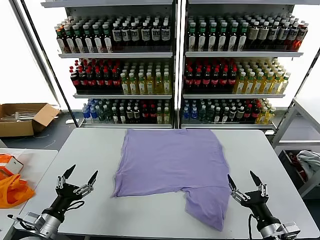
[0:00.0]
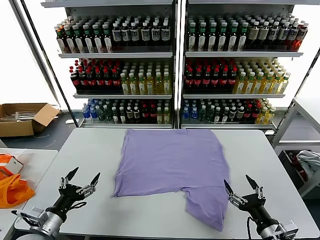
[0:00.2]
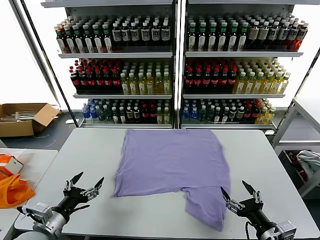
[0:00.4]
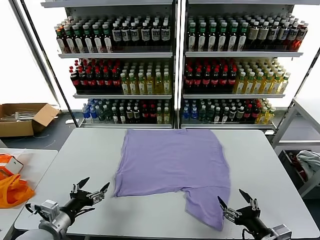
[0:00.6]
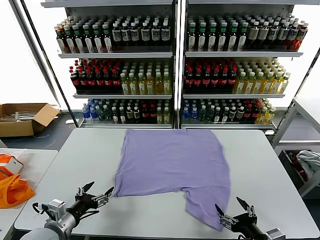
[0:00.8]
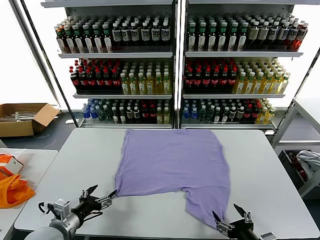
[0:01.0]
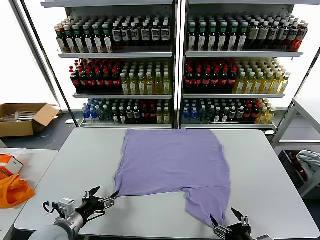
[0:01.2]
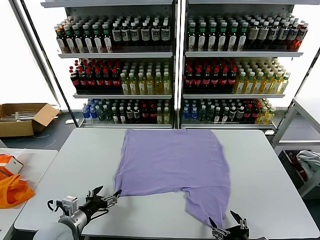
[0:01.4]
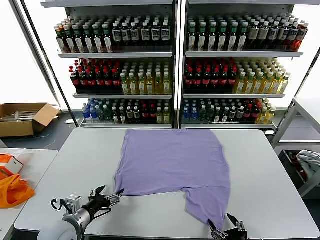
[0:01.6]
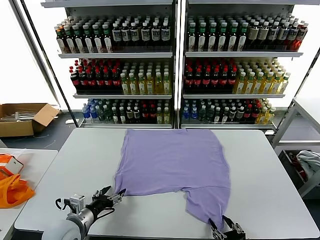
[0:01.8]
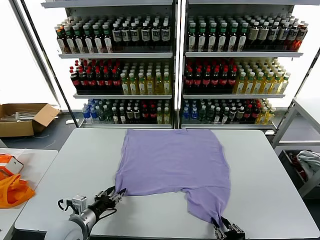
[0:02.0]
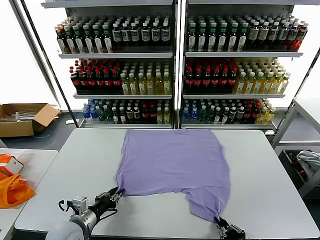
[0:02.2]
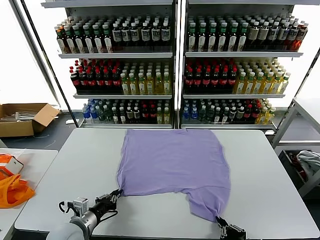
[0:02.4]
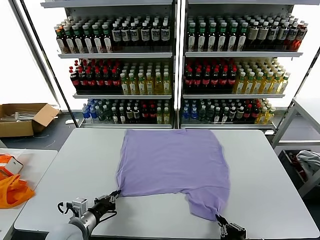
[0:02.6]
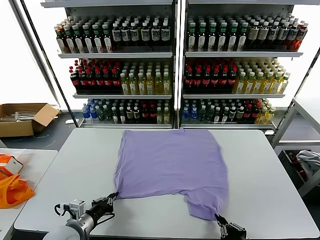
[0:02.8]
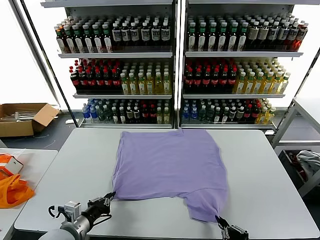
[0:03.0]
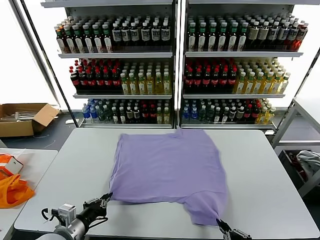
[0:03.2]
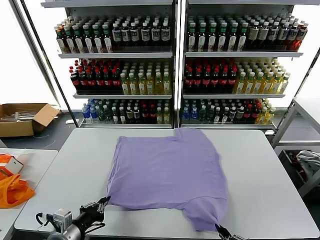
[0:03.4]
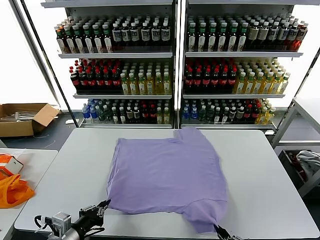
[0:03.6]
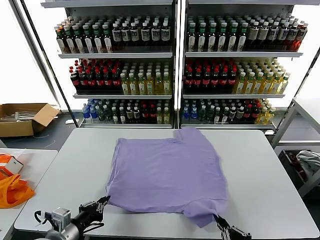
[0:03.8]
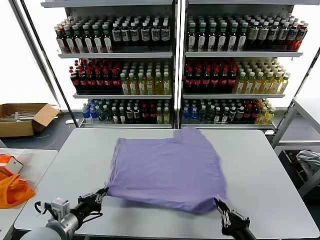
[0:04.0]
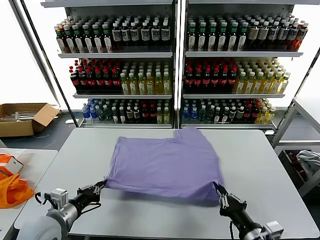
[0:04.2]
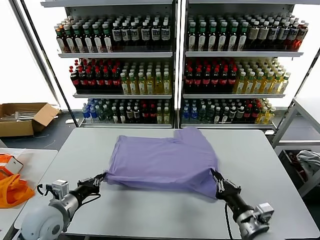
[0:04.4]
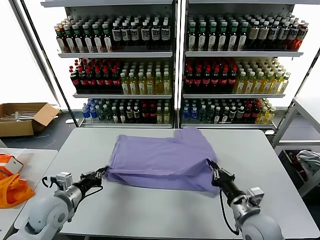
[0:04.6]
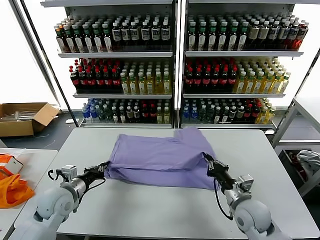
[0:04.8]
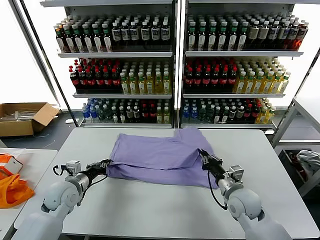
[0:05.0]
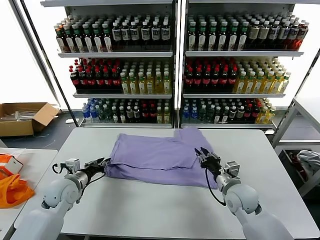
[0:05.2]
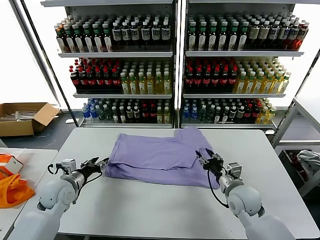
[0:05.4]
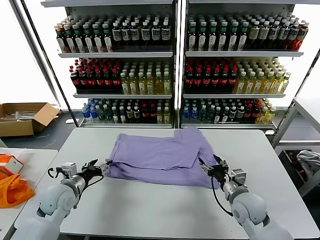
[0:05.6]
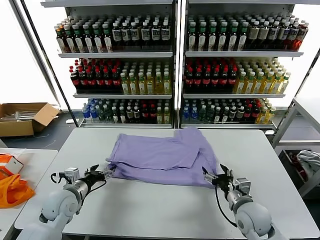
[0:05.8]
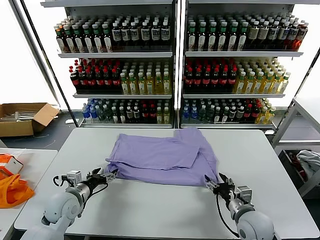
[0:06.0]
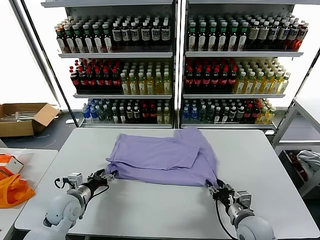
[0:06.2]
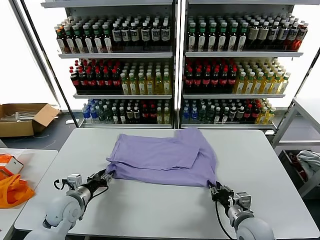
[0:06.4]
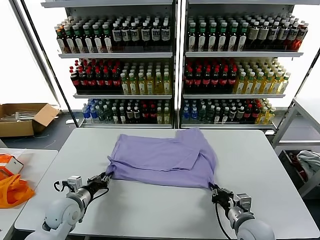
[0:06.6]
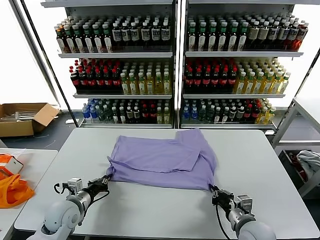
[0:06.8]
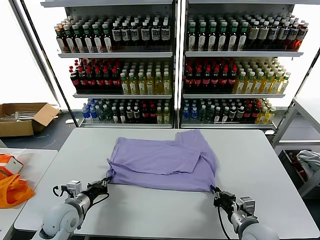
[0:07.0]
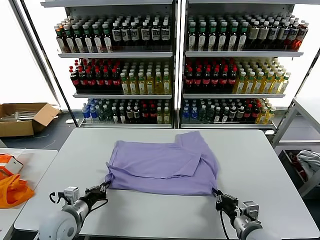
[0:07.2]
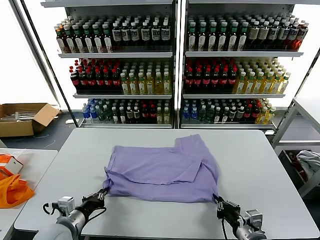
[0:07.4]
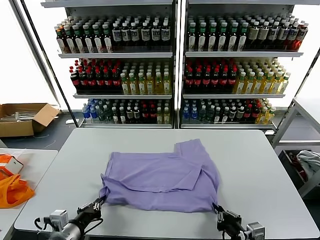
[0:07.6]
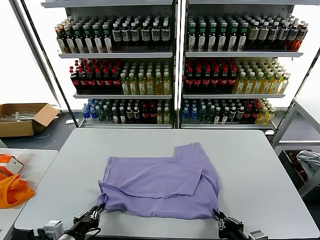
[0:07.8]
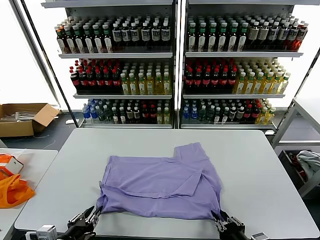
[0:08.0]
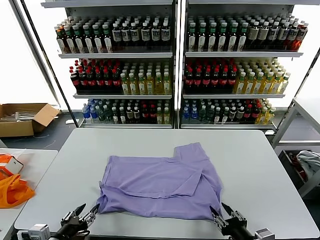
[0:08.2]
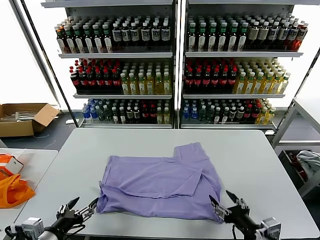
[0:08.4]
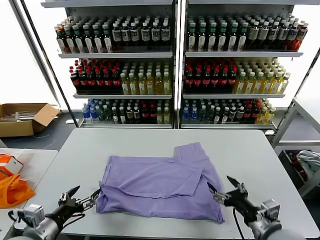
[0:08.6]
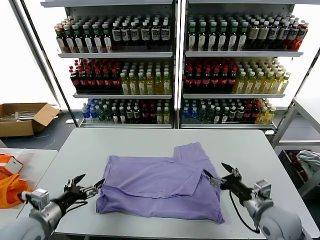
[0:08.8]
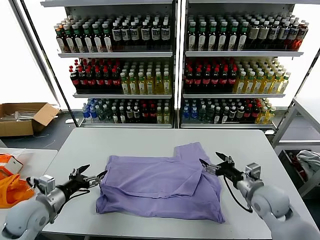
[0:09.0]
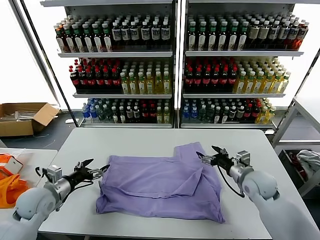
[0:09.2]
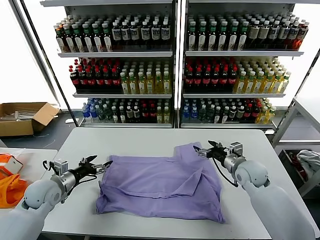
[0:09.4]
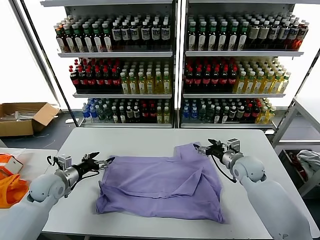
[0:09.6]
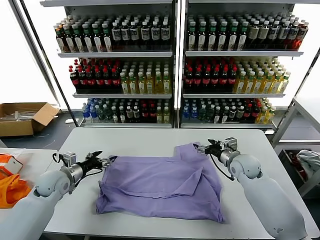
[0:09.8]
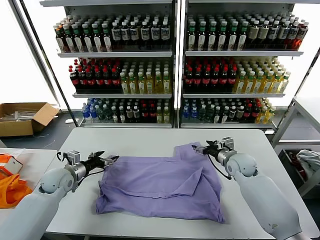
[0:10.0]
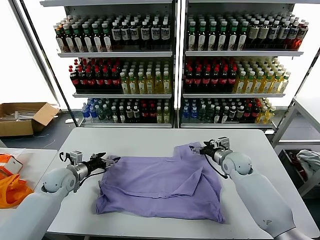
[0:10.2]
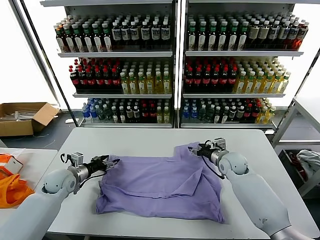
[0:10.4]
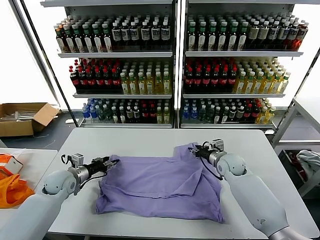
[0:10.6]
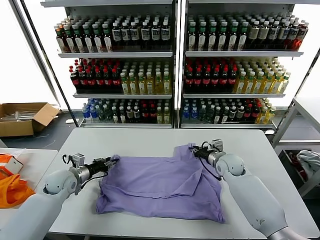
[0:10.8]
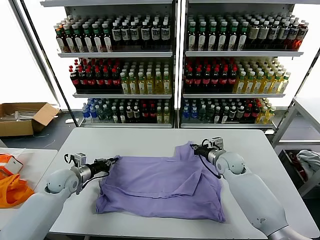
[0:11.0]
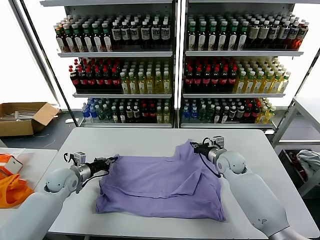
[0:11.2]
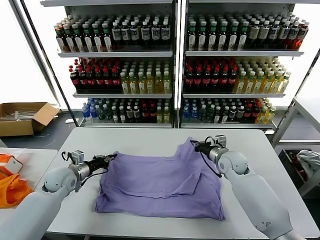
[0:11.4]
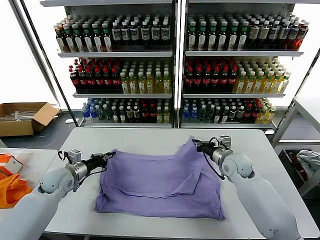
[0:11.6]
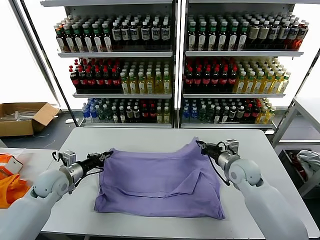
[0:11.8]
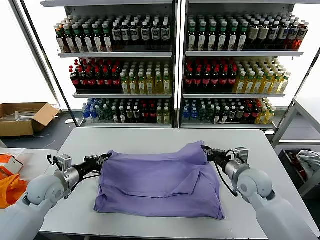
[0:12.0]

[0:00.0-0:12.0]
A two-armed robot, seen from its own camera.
Task of the whole recording: fold and organize the clothes.
Step, 0:00.0 to 0:02.2: use both grippers simultaneously to clamp the lower edge of the clothing fabric.
Step, 0:02.4 to 0:05.2: use both grippers to drag the lower edge of the fabric forward and fold it over the upper edge.
Step, 0:05.4 to 0:08.0: Drag the clothes downward with both gripper.
Step, 0:08.2 to 0:10.8: use both grippers simultaneously to clamp the upper edge of the clothing fabric.
0:01.6 to 0:03.0: The left gripper closes. The right gripper closes up.
0:03.0 to 0:04.4: The left gripper shifts approximately 5 cm forward; the right gripper shifts some 15 cm forward.
0:04.4 to 0:06.0: The right gripper travels forward and back again, some 10 cm each way, and opens its fingers; the left gripper heads forward and downward, covering about 10 cm, and opens.
0:06.0 to 0:07.6: The two grippers go roughly 15 cm backward. The left gripper closes its fingers; the right gripper closes its fingers.
0:07.6 to 0:09.0: The left gripper travels forward and to the left by roughly 15 cm, and opens up. The right gripper heads forward, covering approximately 20 cm, and opens its fingers.
0:09.0 to 0:10.4: The right gripper goes about 15 cm forward. Meanwhile the left gripper moves forward and downward, roughly 15 cm.
0:10.4 to 0:12.0: The left gripper moves backward and upward, approximately 10 cm, and closes up. The right gripper moves backward and upward, some 15 cm, and closes.

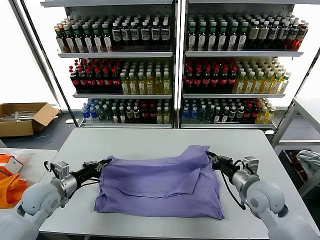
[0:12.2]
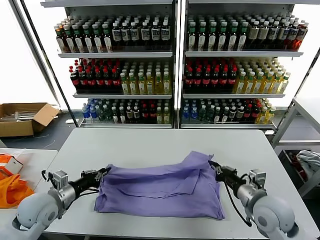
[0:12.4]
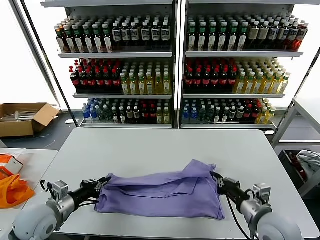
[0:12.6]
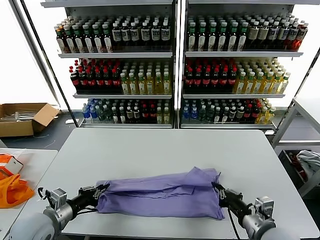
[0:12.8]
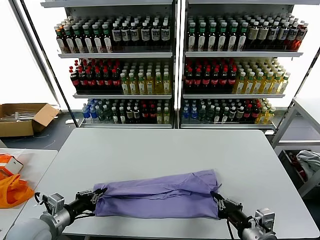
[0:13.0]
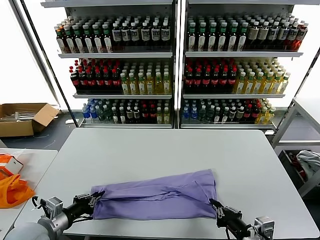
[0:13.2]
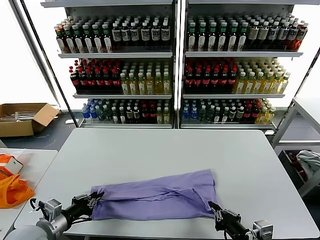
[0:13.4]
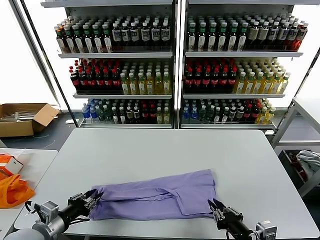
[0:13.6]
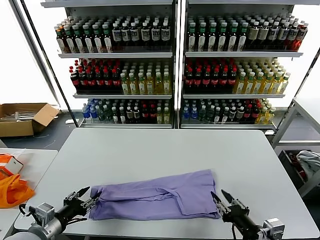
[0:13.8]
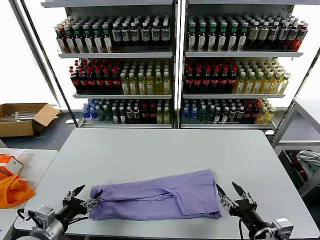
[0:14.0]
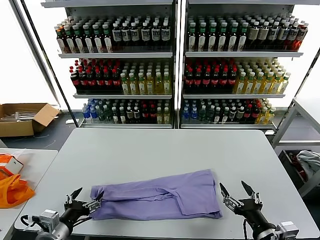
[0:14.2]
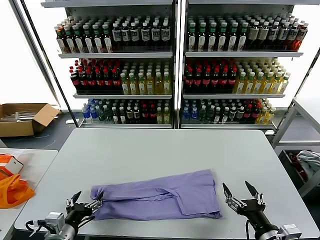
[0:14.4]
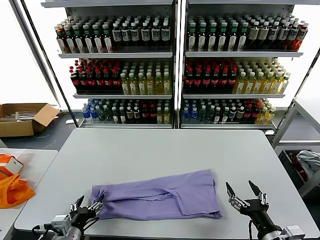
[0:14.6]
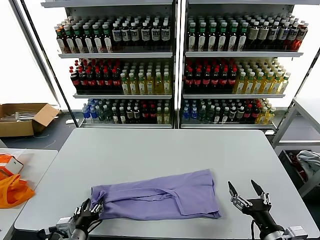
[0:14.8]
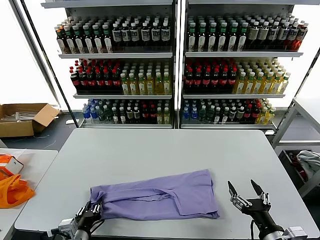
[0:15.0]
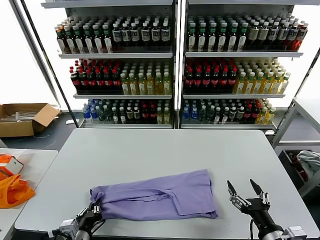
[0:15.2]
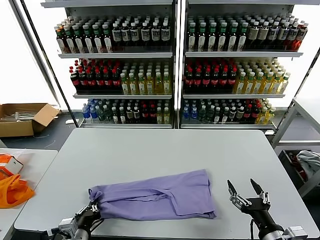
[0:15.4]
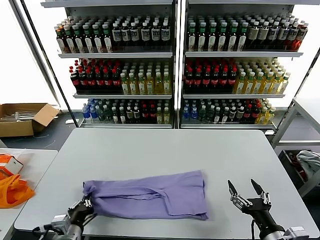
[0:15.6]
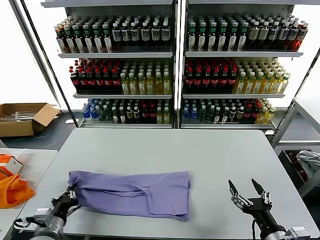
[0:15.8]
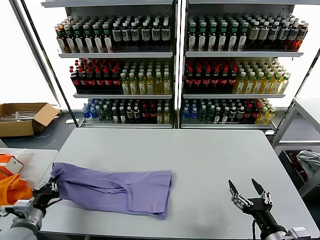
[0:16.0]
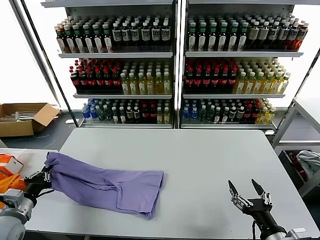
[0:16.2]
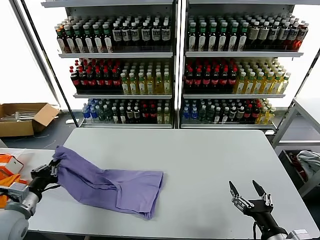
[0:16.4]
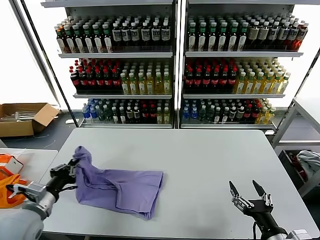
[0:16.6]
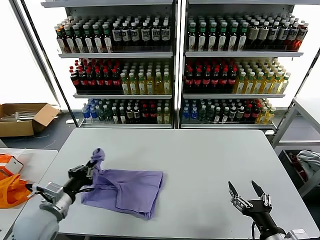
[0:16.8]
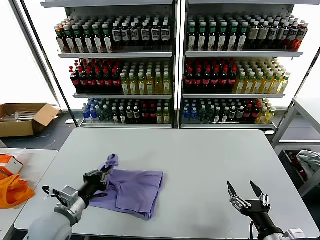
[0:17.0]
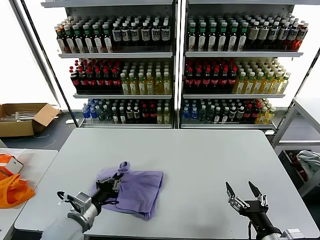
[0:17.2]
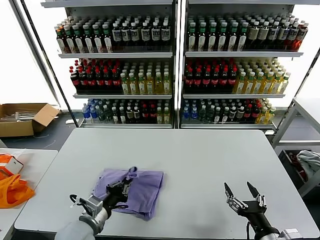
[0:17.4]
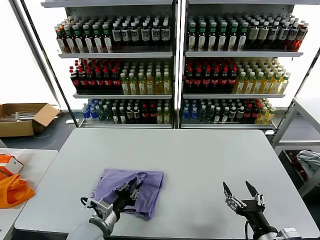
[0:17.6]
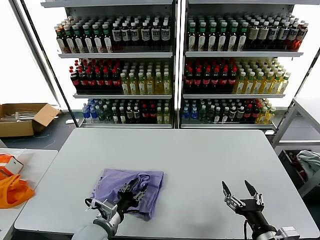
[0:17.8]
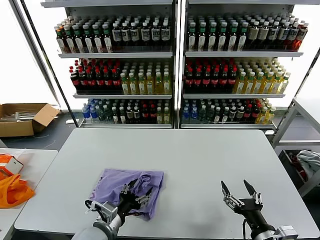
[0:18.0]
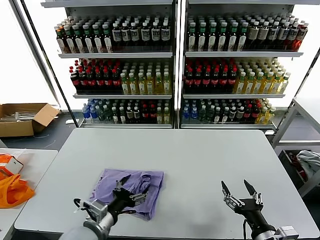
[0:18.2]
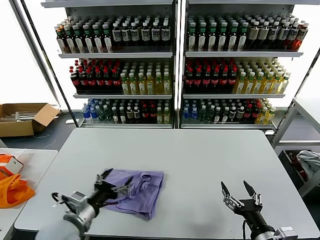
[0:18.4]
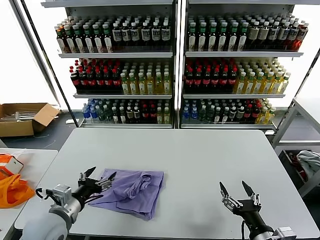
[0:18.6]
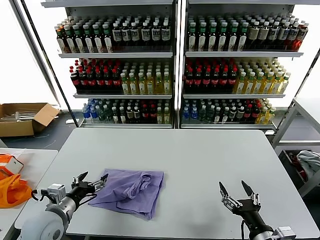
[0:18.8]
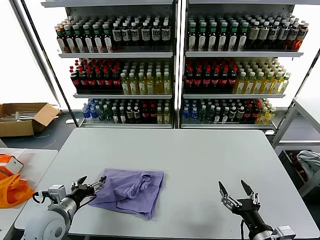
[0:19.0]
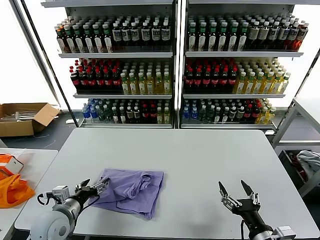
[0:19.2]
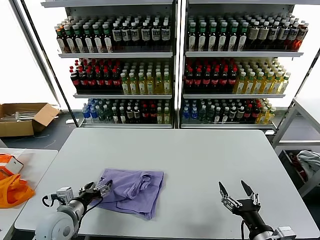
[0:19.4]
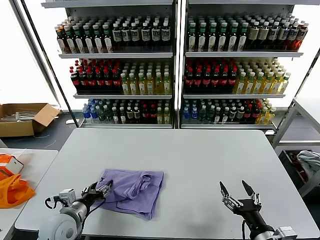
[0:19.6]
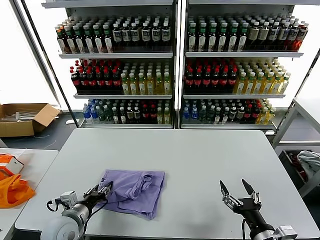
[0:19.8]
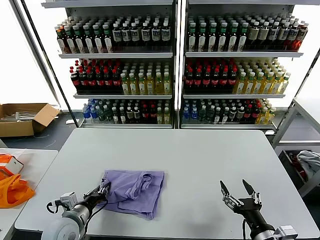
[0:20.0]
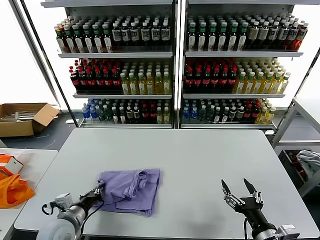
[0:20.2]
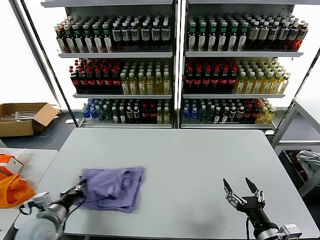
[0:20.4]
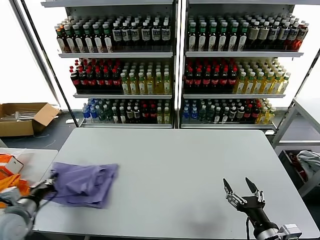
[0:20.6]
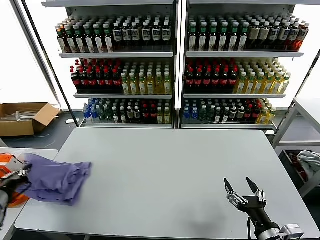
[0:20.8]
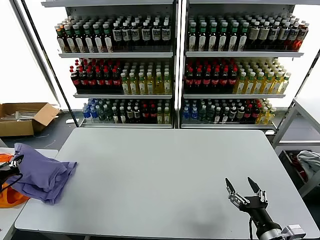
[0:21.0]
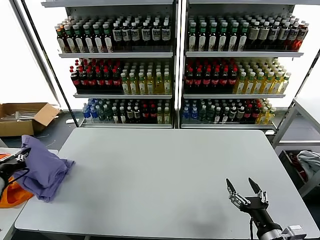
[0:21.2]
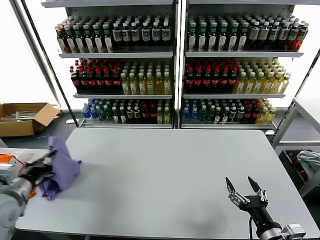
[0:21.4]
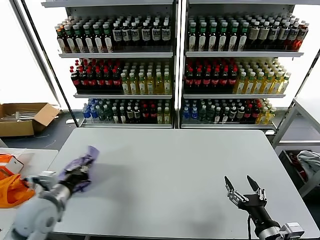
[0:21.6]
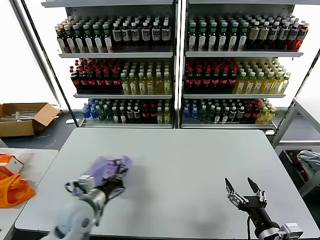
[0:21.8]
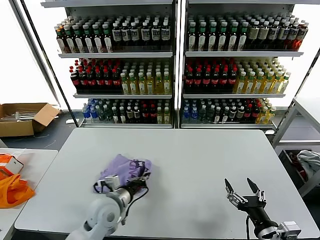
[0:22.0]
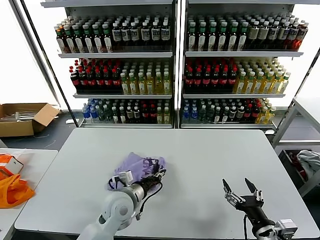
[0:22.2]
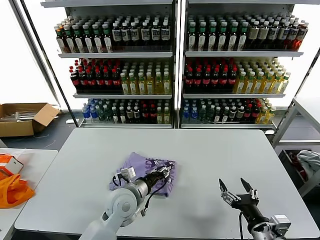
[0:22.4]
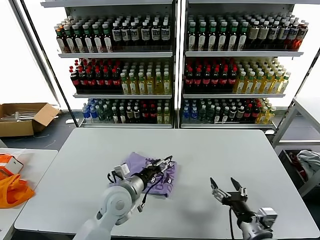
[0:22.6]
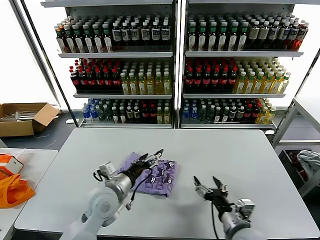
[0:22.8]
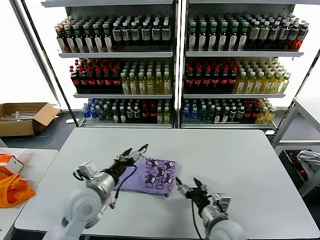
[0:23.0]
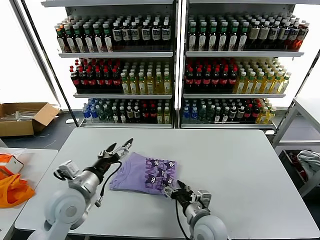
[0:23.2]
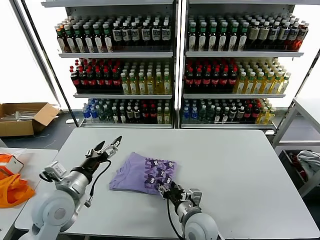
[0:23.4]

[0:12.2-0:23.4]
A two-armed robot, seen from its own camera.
Task of the whole recording: fold and organize the clothes.
Step, 0:12.2 to 0:13.6: use both grippers to drag the upper edge of the fabric backward and fold it over the lower edge.
Step, 0:14.0 to 0:15.0: use the left gripper to clamp the left edge of the fabric.
Step, 0:15.4 to 0:17.8: use the left gripper to drag the left edge of the fabric to the left and folds it over the right edge.
Step, 0:18.2 to 0:22.2: Flip the folded clothes over with left gripper.
0:12.2 to 0:13.8: The grippers both shift backward by some 15 cm. The left gripper opens its fingers. The right gripper opens up.
0:13.8 to 0:15.4: The right gripper opens, while the left gripper moves to the right and downward, about 10 cm, and closes its fingers.
0:15.4 to 0:17.0: The left gripper goes about 10 cm upward and forward, and goes to the left and returns, approximately 20 cm each way.
0:17.0 to 0:18.6: The left gripper moves approximately 10 cm to the right and comes back, and opens its fingers.
0:18.6 to 0:20.2: The left gripper moves downward, some 5 cm, and closes up.
0:20.2 to 0:21.8: The left gripper moves about 20 cm to the left and comes back.
0:21.8 to 0:23.4: The right gripper goes about 20 cm to the left and forward. The left gripper heads upward, covering roughly 5 cm, travels to the right and back again, approximately 15 cm each way, and opens its fingers.
